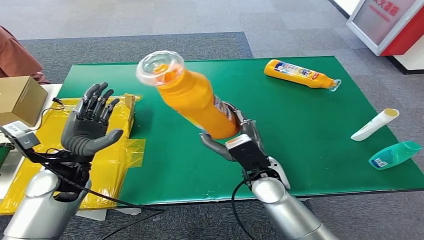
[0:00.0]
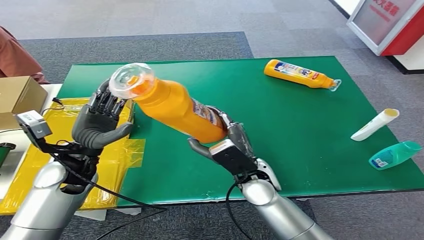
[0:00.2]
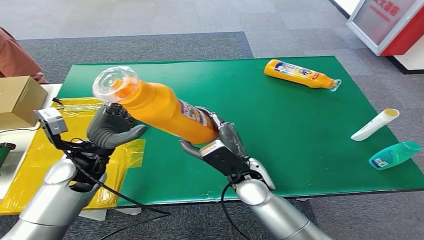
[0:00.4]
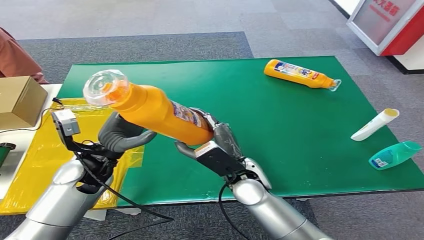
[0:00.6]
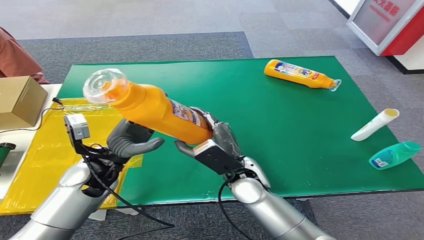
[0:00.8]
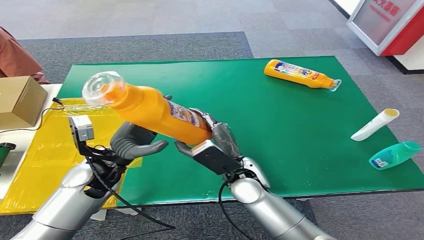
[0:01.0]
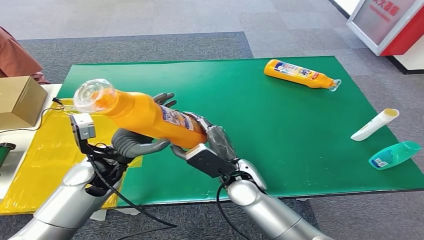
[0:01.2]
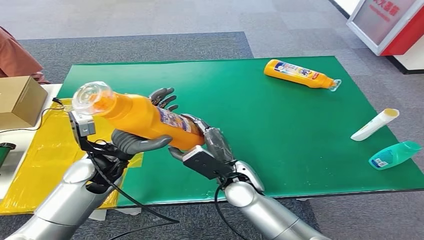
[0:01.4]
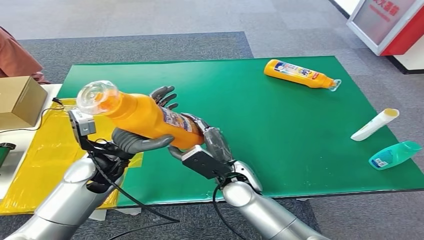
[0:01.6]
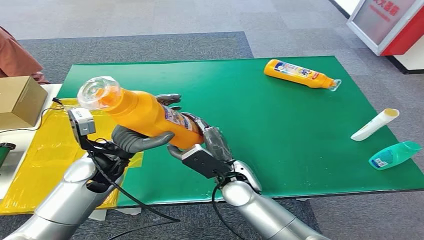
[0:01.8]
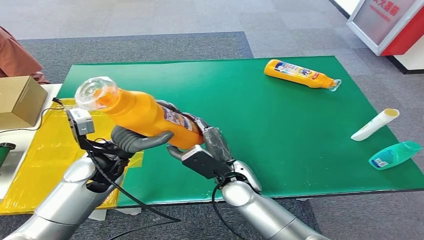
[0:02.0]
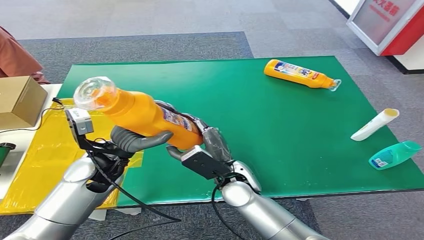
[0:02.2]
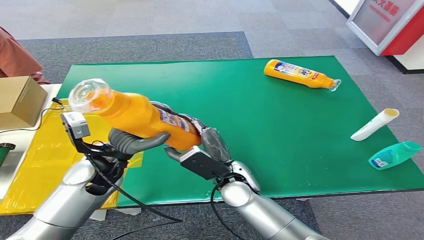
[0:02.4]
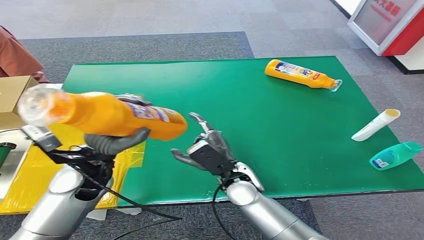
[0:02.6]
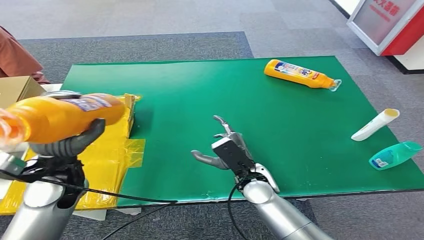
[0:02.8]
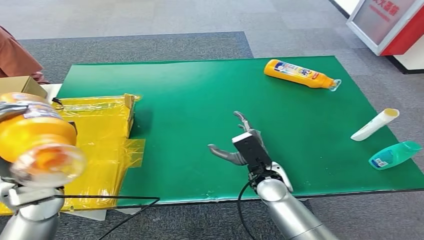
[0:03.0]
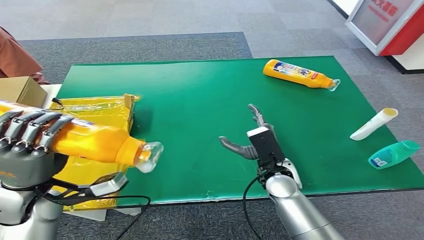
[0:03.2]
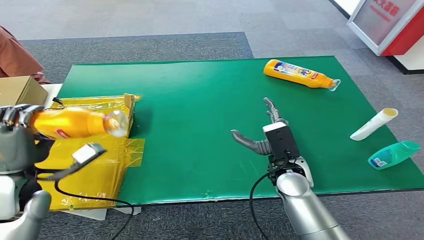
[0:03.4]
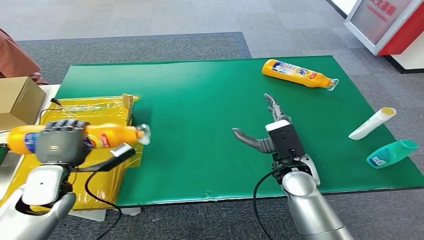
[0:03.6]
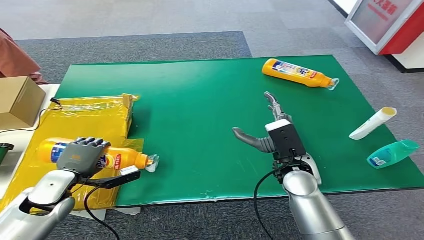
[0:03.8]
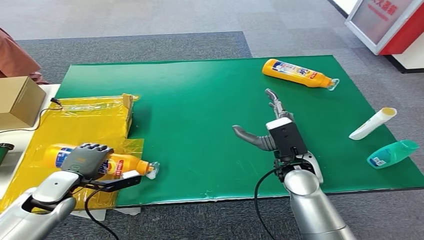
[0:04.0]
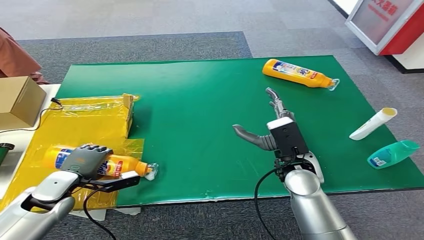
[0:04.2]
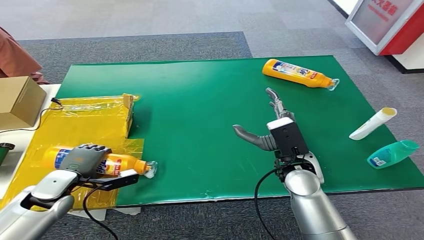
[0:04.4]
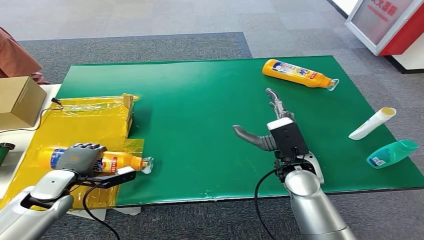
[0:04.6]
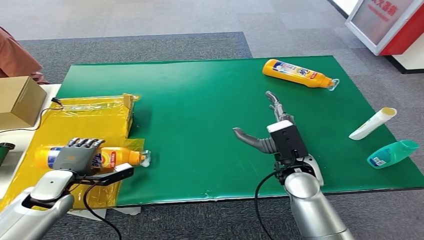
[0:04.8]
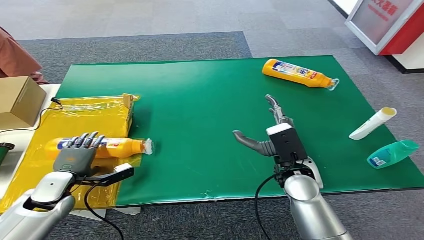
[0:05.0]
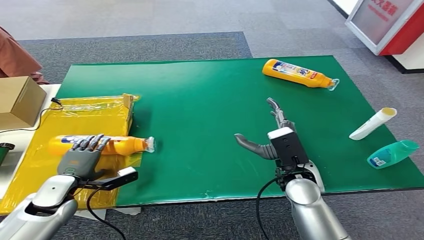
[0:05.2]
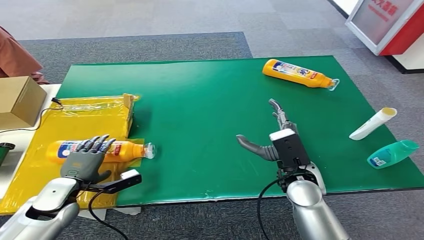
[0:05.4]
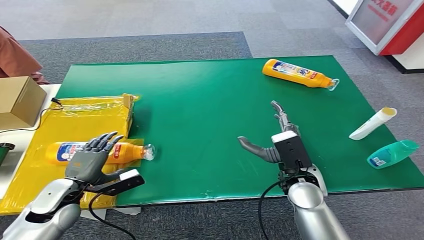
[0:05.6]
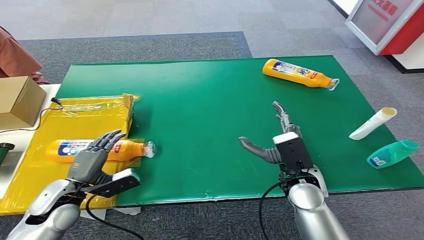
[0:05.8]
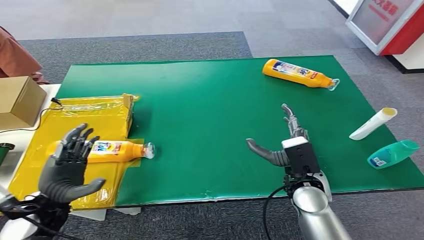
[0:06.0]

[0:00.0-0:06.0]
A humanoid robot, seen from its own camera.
Step, 0:00.0 to 0:05.8: Turn the bottle to the front side.
0:04.4 to 0:06.0: The right hand shifts by about 5 cm; the left hand is displaced backward by about 5 cm.

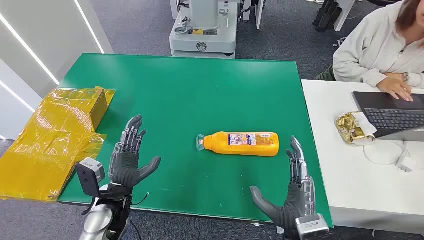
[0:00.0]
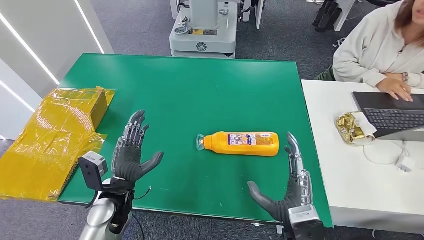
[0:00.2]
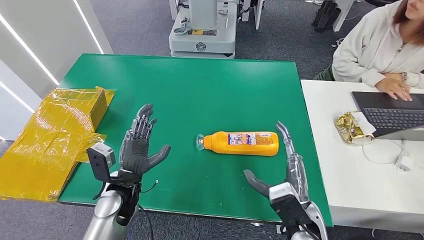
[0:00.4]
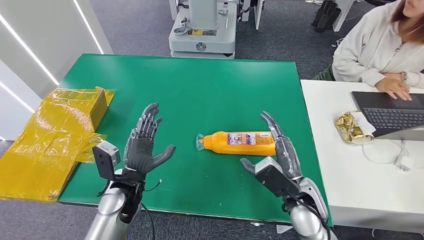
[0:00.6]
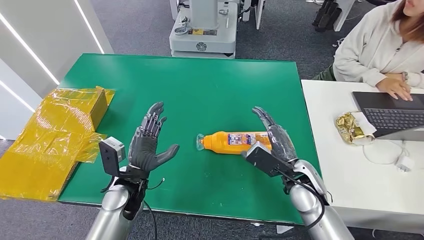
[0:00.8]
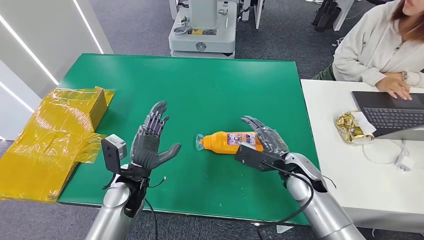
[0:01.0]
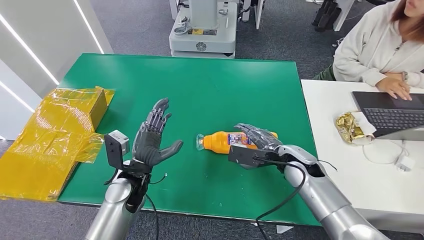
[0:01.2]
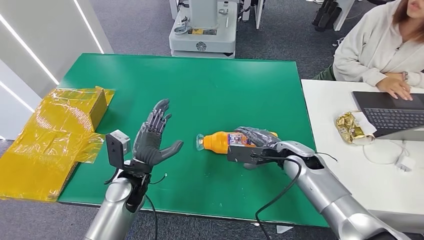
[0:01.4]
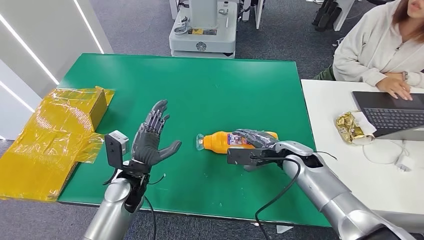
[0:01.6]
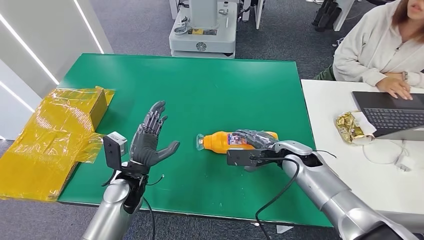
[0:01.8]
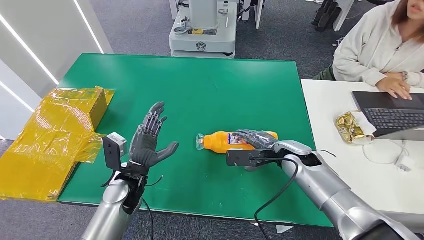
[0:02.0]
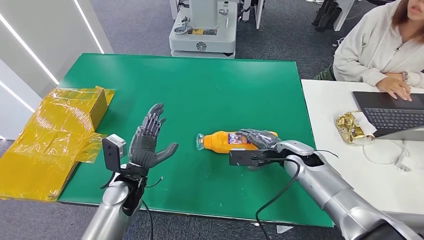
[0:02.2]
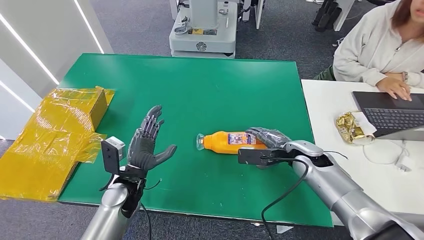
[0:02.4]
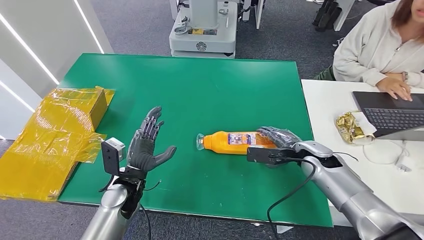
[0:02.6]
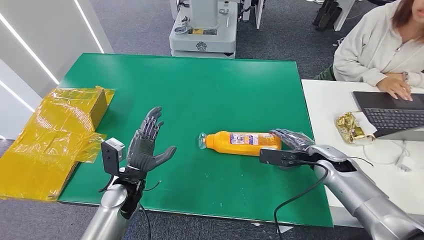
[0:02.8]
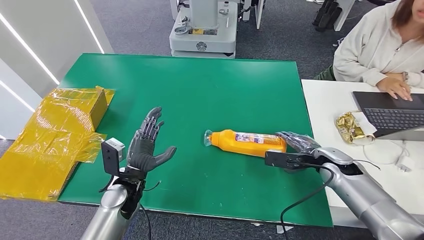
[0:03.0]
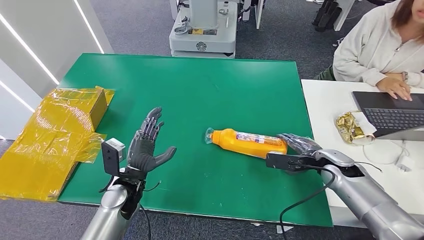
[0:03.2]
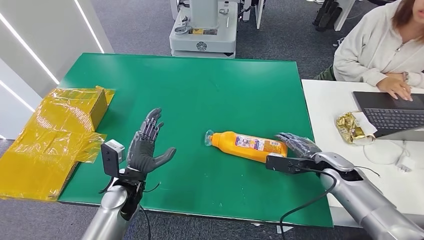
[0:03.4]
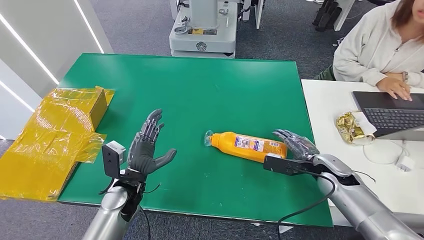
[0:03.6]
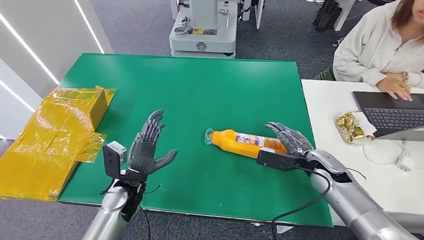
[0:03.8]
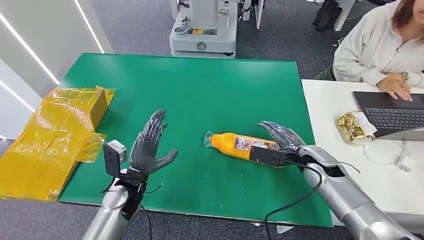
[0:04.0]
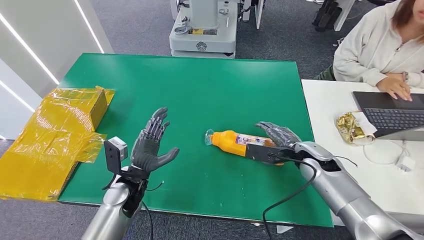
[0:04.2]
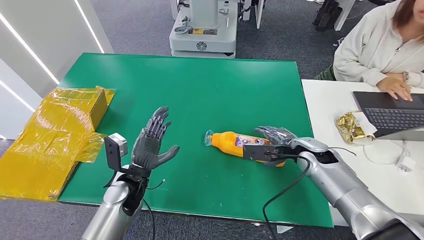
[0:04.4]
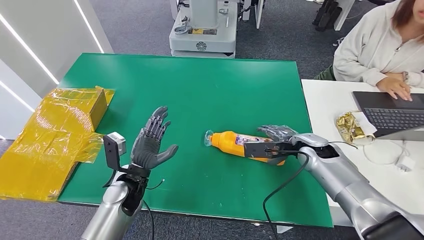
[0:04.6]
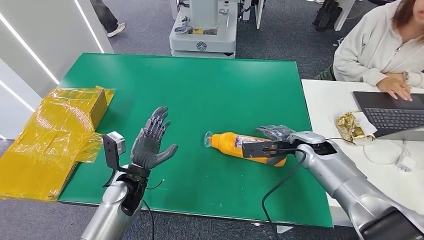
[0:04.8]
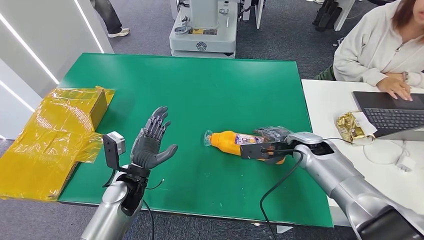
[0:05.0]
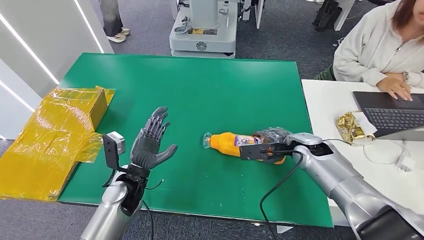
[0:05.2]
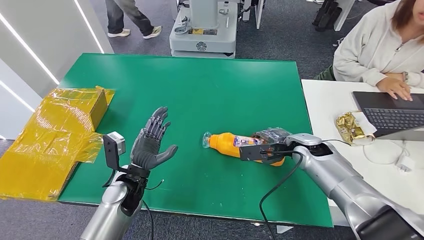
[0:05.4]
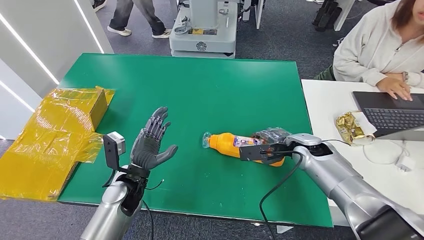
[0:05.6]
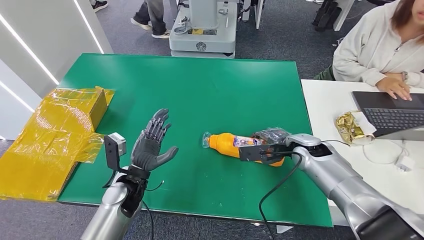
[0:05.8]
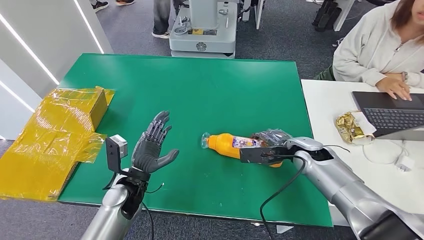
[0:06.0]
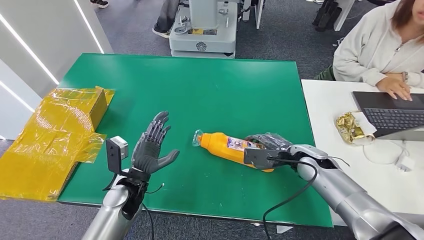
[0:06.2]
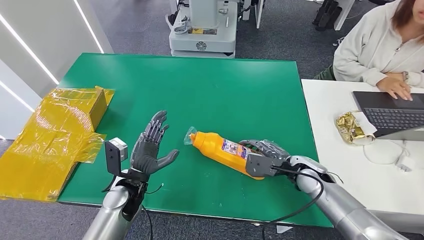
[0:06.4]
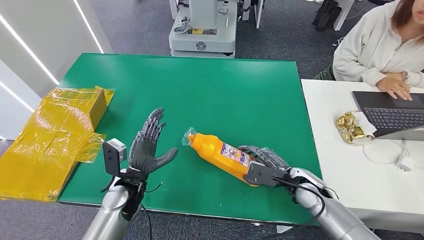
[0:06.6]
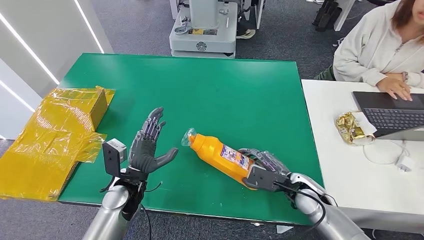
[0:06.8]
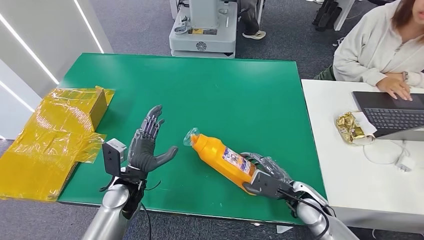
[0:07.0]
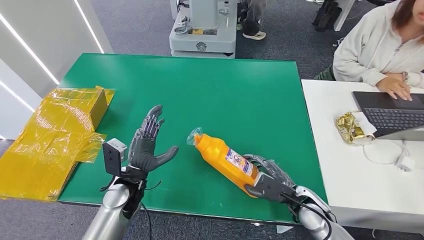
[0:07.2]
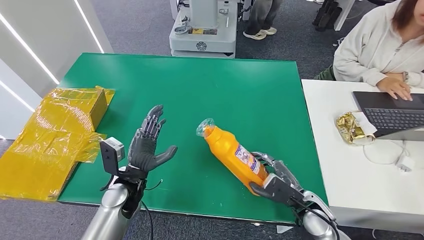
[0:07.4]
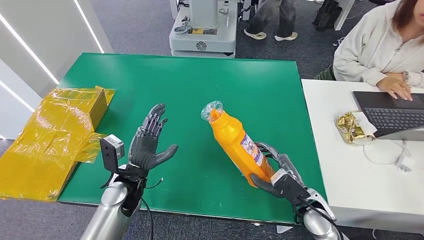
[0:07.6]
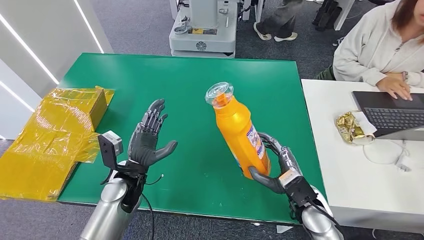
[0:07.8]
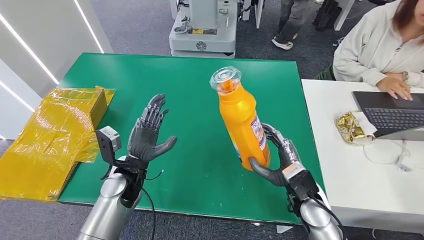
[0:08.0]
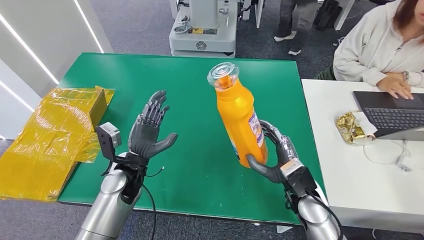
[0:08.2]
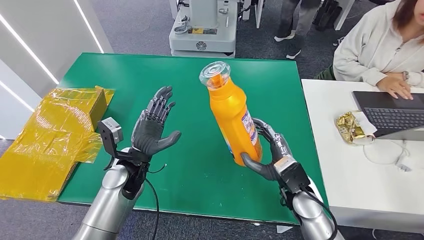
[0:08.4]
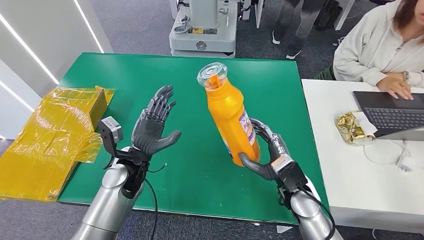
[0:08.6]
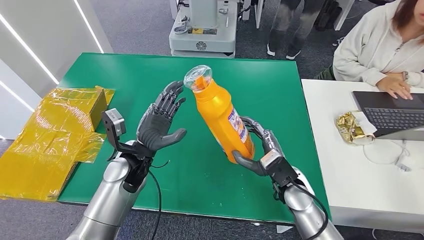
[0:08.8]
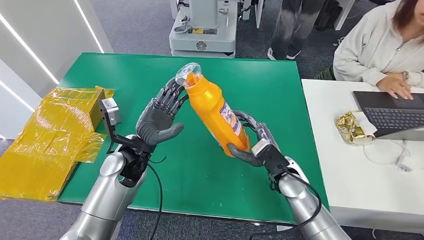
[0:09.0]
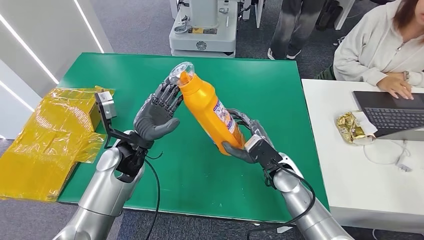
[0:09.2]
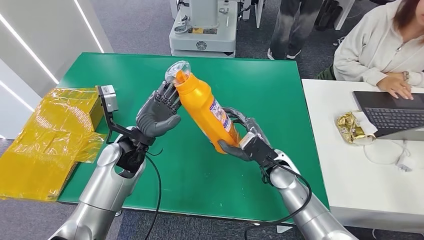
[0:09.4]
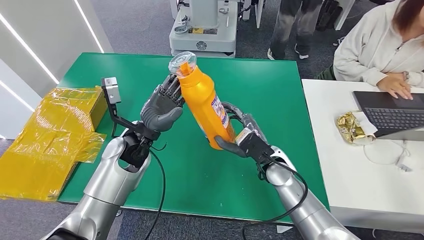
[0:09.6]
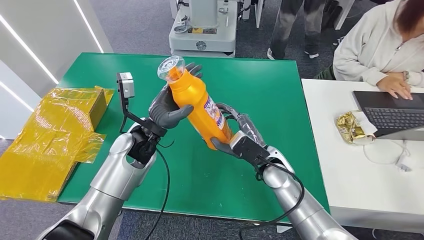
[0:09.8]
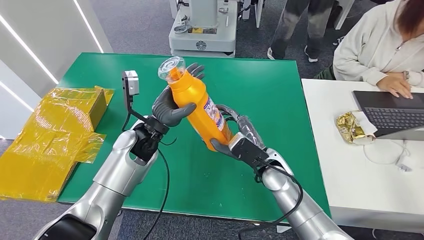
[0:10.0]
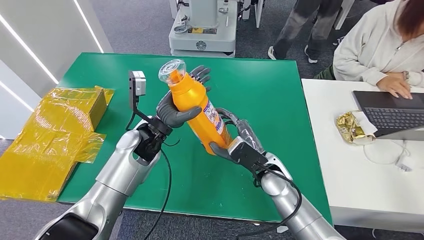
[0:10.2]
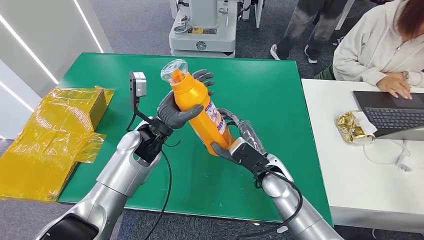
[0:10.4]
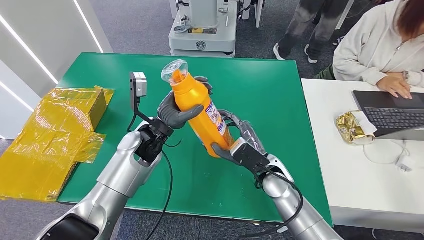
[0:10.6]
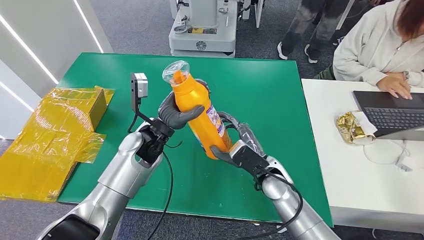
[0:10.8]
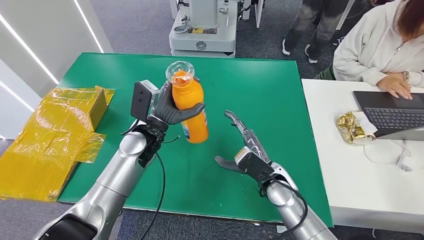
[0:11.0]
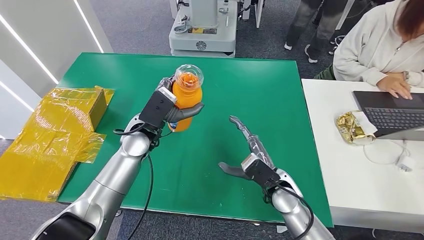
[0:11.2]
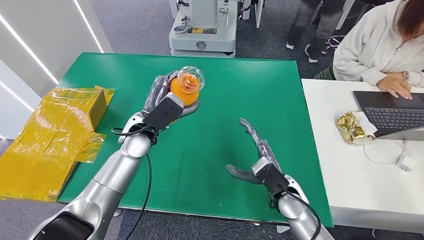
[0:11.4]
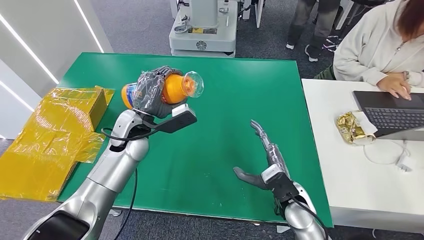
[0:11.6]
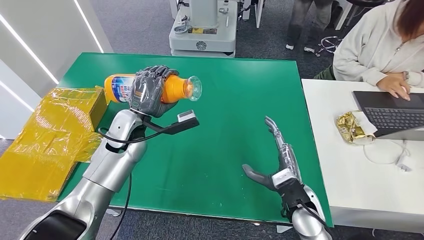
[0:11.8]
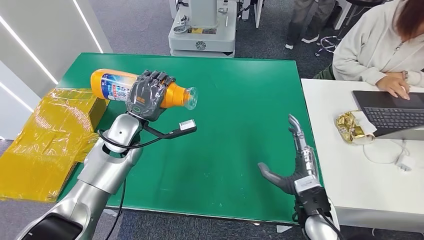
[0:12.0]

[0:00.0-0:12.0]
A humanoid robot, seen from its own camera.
Step, 0:00.0 to 0:07.8: Pick up the bottle from the table.
0:01.6 to 0:03.0: The right hand moves to the right, about 10 cm.
0:03.0 to 0:04.4: The right hand heads to the left, covering approximately 5 cm.
0:04.4 to 0:06.0: The hands move only a little.
0:06.0 to 0:07.6: The right hand moves backward and downward, about 15 cm.
0:07.6 to 0:09.0: The left hand heads upward, covering about 5 cm; the right hand shifts some 10 cm to the left and forward.
0:09.0 to 0:10.4: The left hand ends up roughly 5 cm from where it was.
